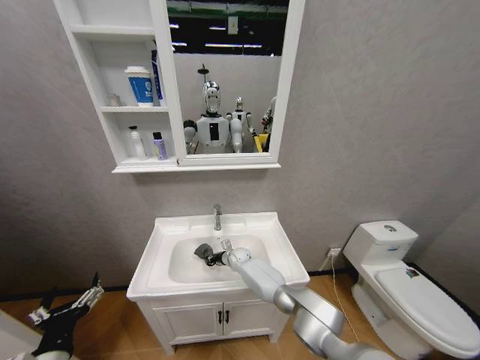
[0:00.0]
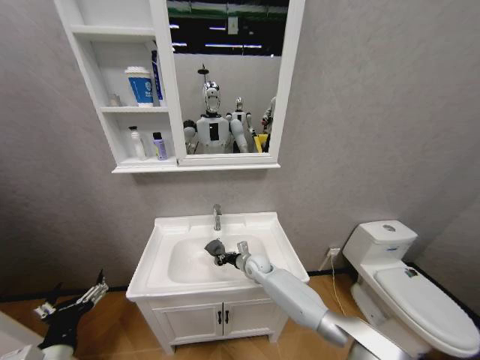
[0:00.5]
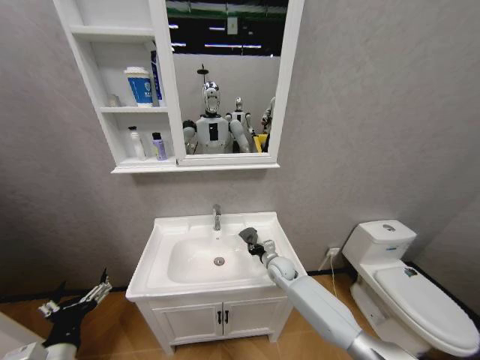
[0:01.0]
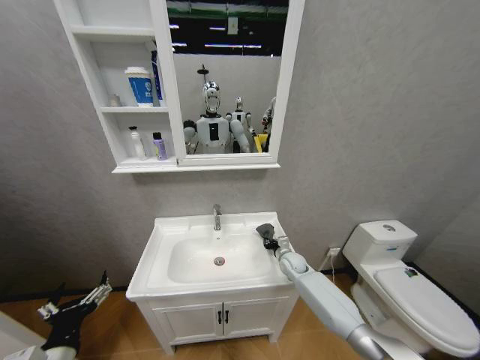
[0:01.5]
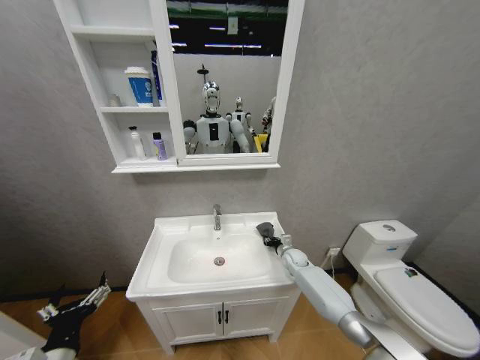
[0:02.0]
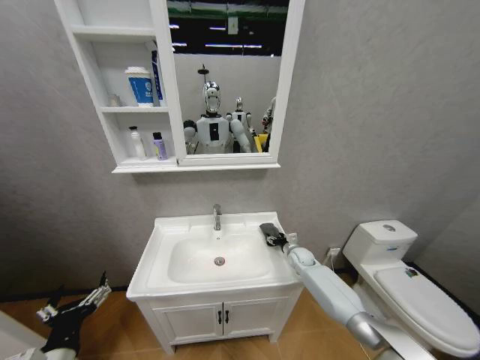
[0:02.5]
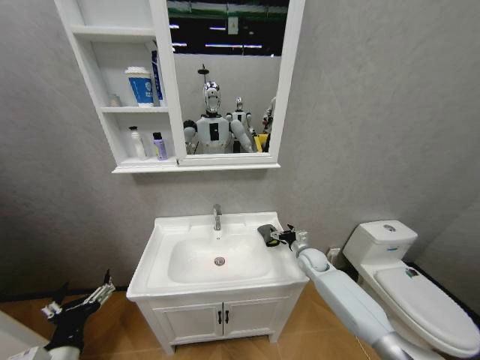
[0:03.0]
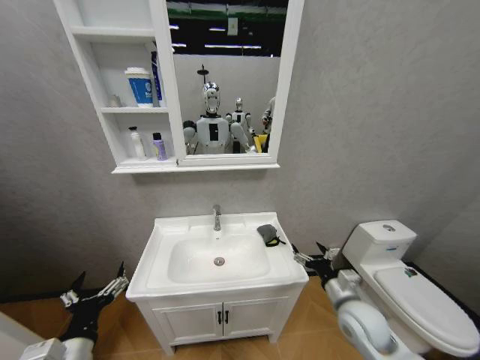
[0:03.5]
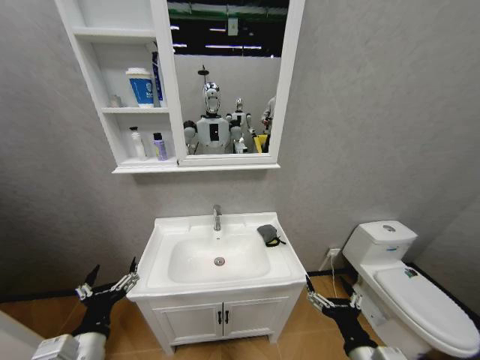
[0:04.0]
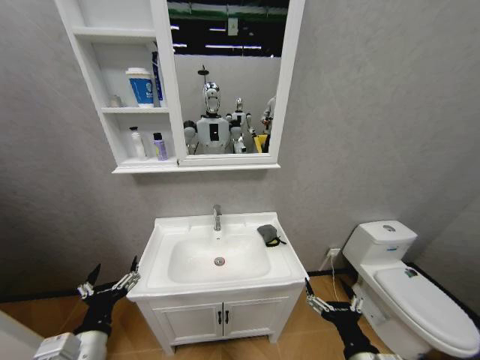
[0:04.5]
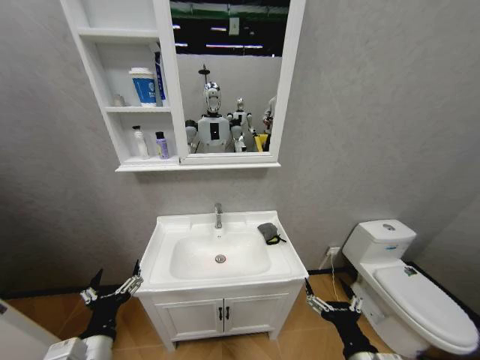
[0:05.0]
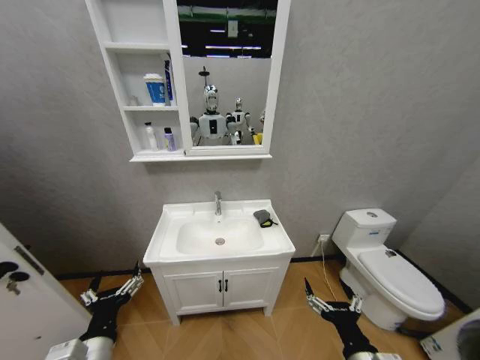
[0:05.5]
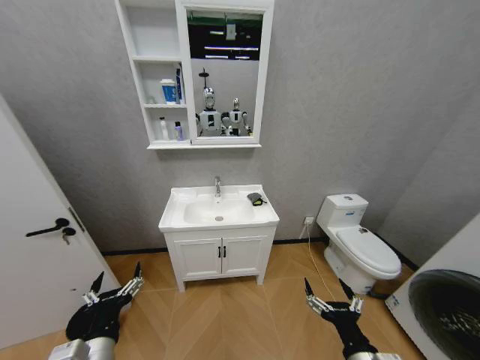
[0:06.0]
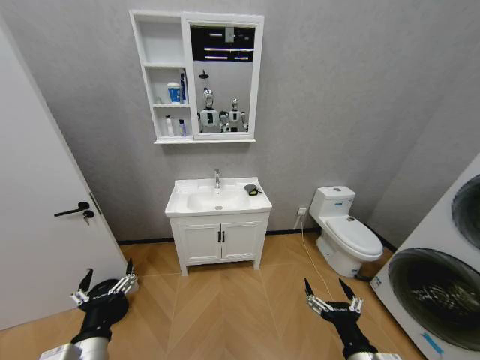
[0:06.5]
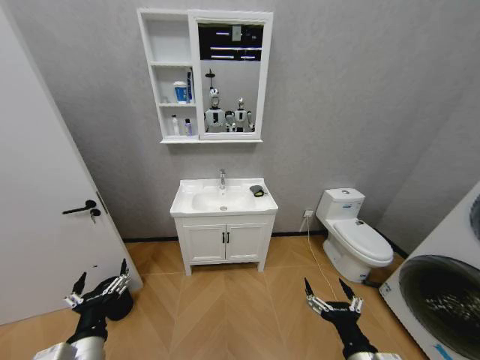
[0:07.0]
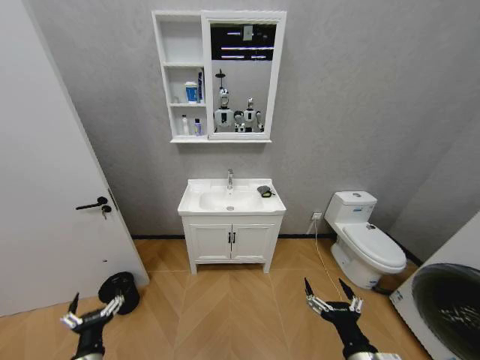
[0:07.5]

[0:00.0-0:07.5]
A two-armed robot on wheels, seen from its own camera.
Task of the whole recording: Move facial cleanser and shampoo from washbasin to cabinet, then wipe washbasin with towel.
0.0 to 2.0 s: The right gripper is displaced to the right by approximately 25 cm.
2.0 to 4.0 s: The right gripper heads backward, covering approximately 40 cm, and opens up.
5.5 to 7.5 s: The left gripper heads downward and to the left, covering about 20 cm.

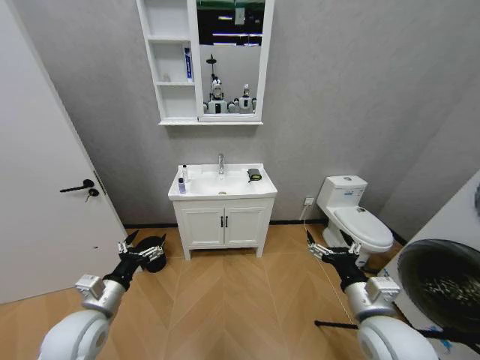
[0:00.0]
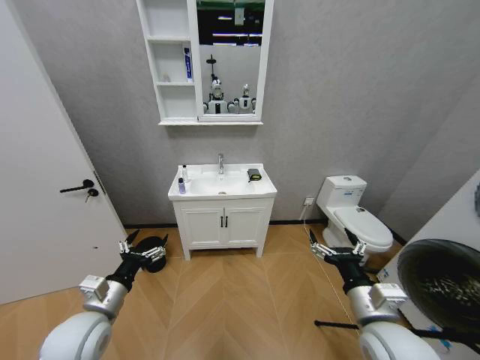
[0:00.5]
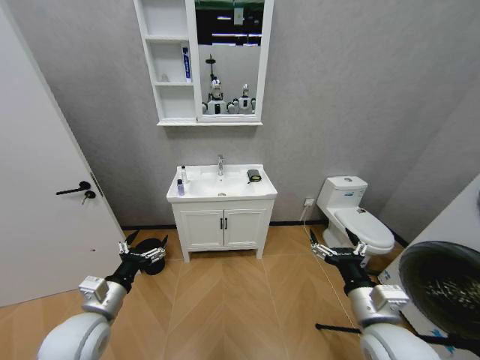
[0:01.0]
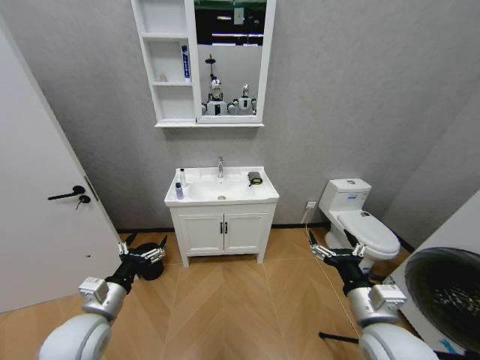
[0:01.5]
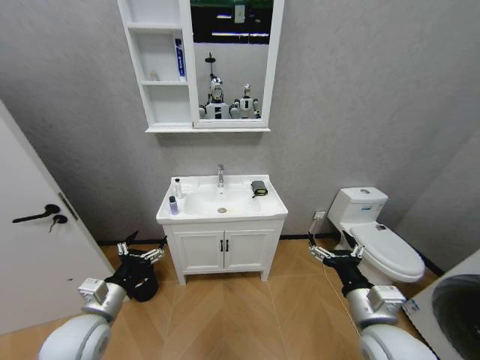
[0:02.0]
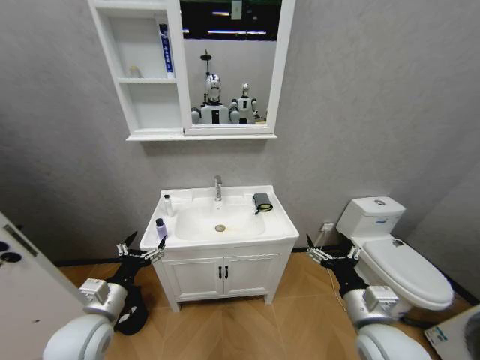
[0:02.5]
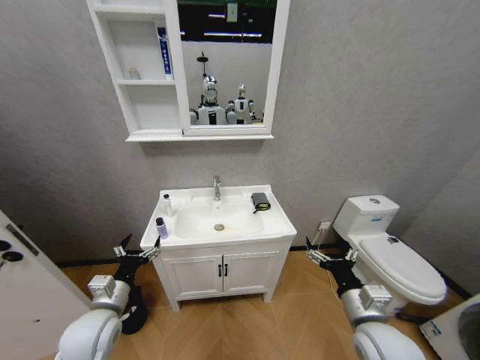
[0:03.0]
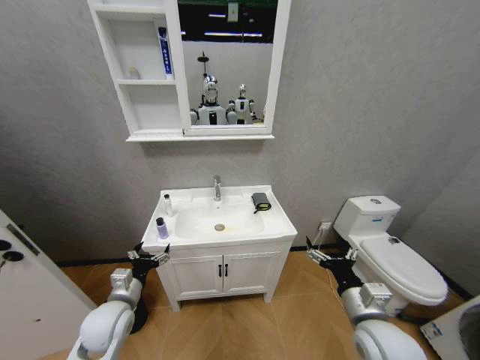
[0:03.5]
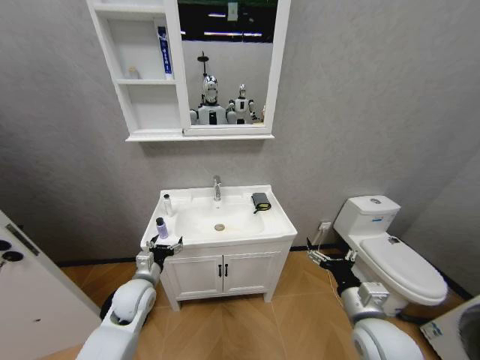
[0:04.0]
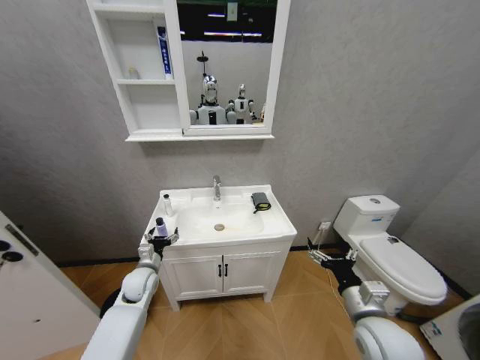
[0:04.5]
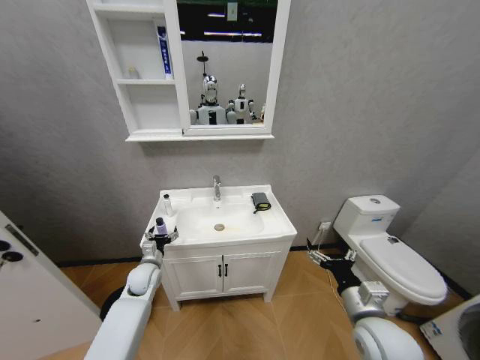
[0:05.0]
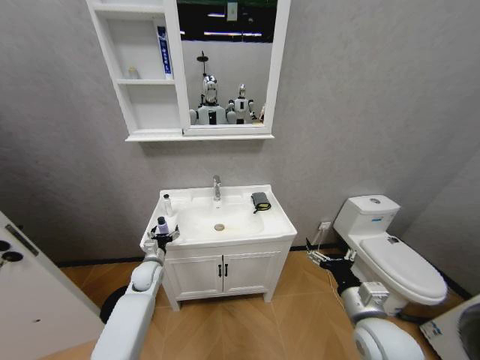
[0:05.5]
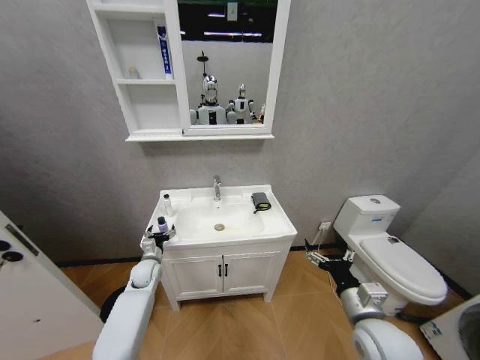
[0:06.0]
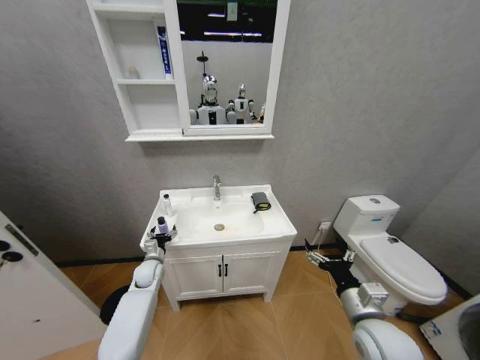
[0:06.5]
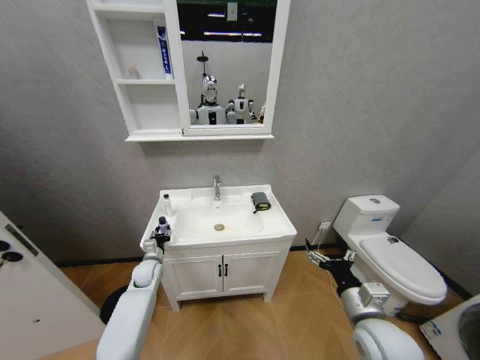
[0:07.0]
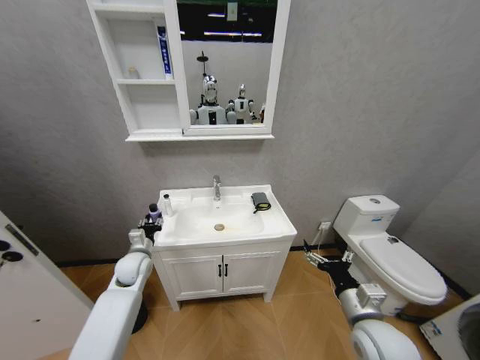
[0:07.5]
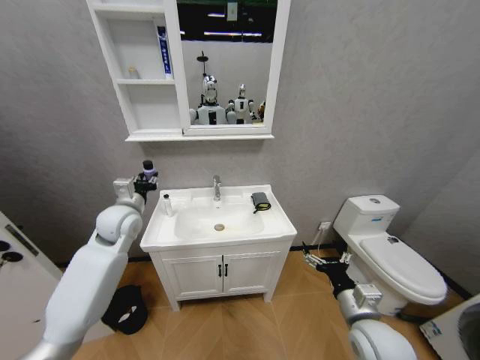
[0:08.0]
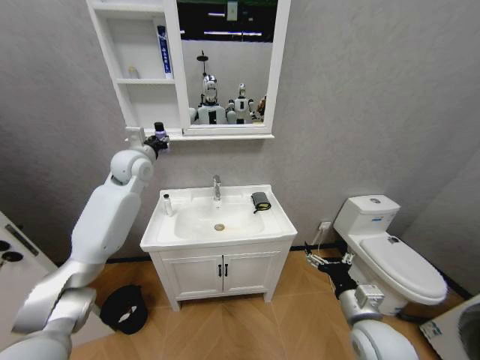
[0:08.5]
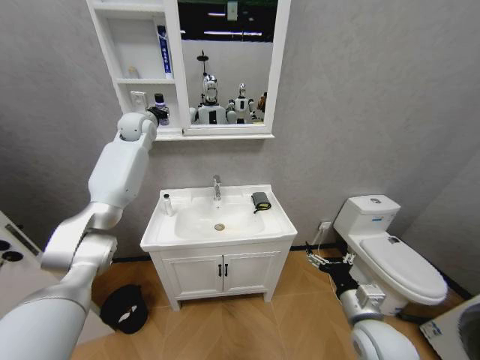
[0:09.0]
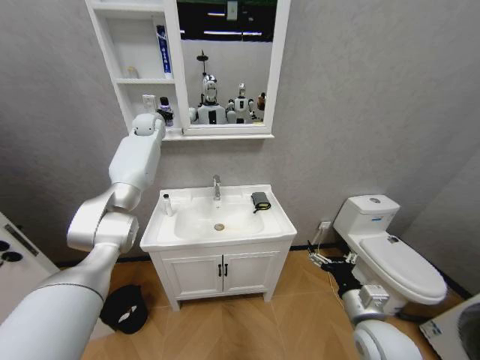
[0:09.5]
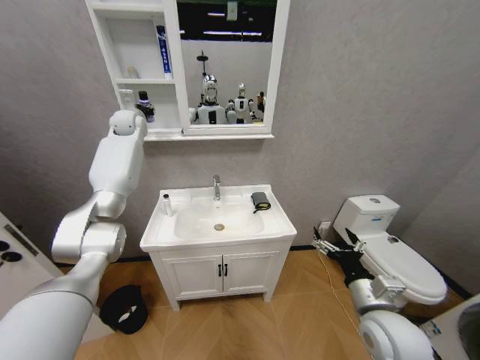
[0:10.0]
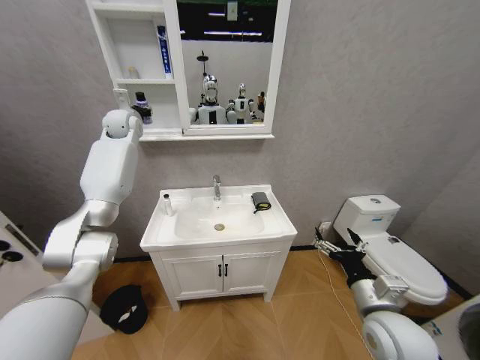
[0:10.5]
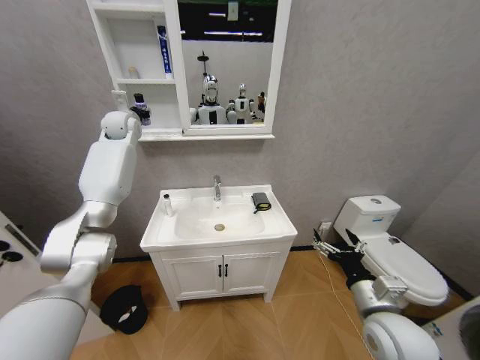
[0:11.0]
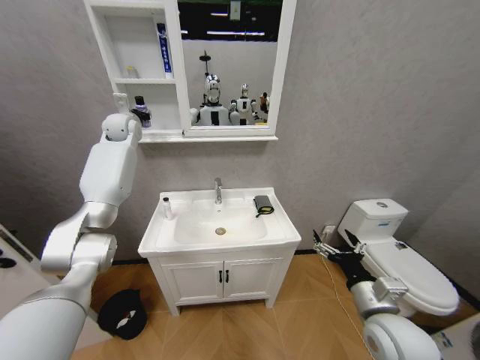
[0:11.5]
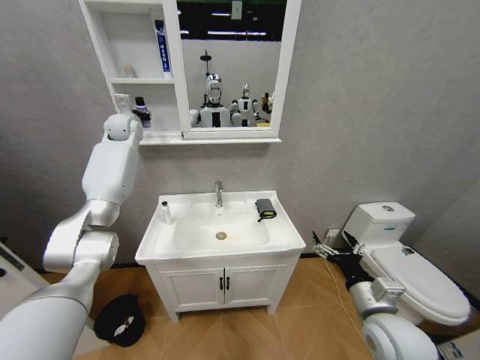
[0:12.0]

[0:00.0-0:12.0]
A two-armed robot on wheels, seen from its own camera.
Task of the whole recording: Move facial cleanser and shampoo from washbasin to cabinet, then wipe washbasin with towel.
2.0 to 4.0 s: The left gripper moves forward and downward, approximately 10 cm.
4.0 to 6.0 s: The left gripper shifts approximately 15 cm forward and downward.
6.0 to 8.0 s: The left gripper is displaced upward by some 25 cm, and closes up.
8.0 to 10.0 s: The left gripper heads forward and upward, covering roughly 30 cm.

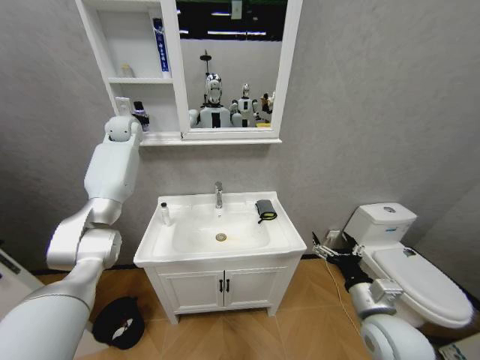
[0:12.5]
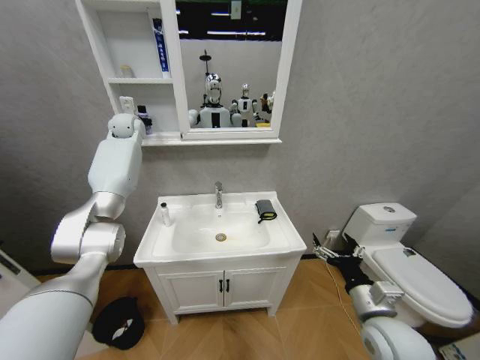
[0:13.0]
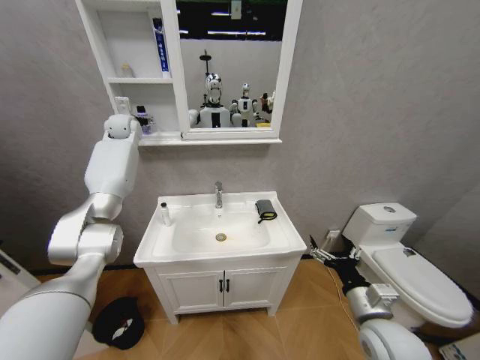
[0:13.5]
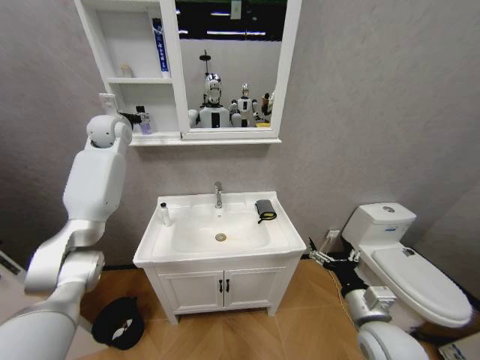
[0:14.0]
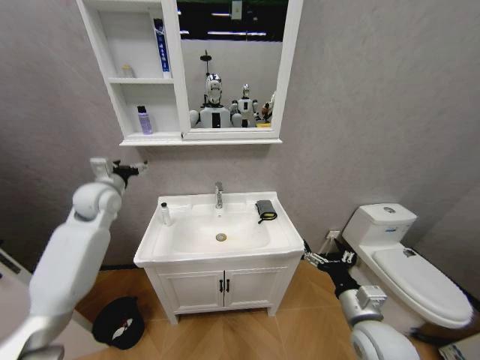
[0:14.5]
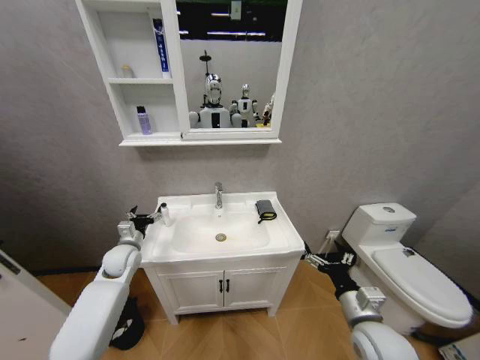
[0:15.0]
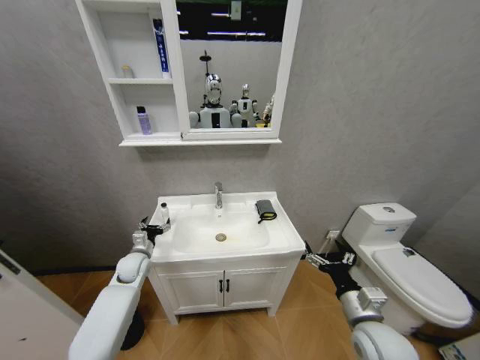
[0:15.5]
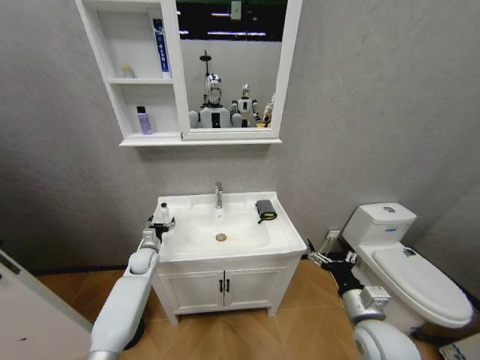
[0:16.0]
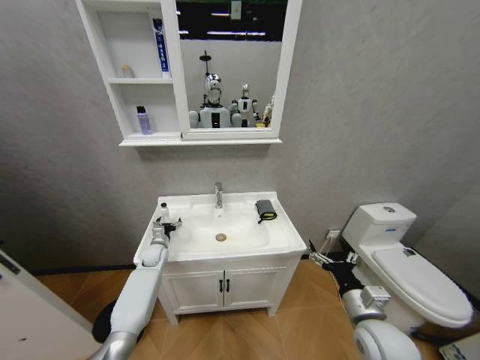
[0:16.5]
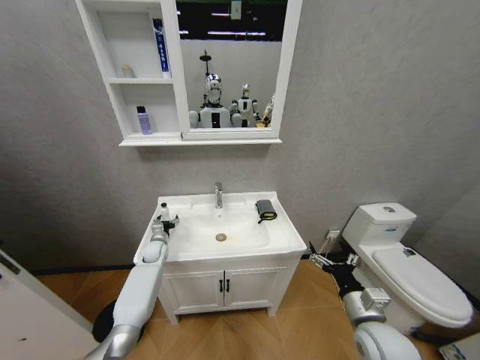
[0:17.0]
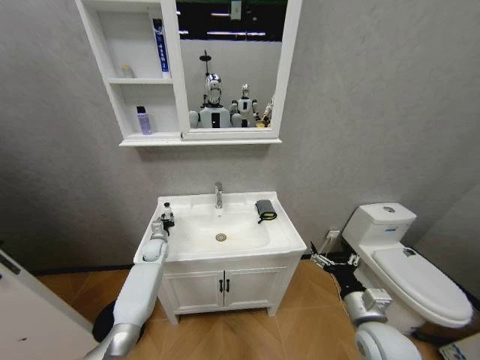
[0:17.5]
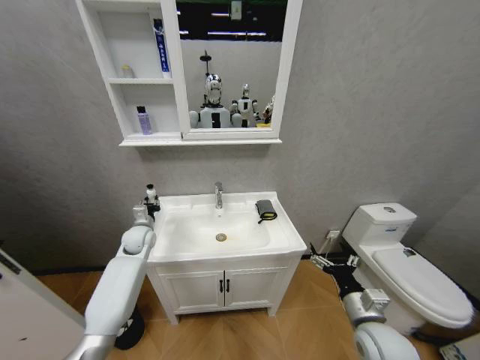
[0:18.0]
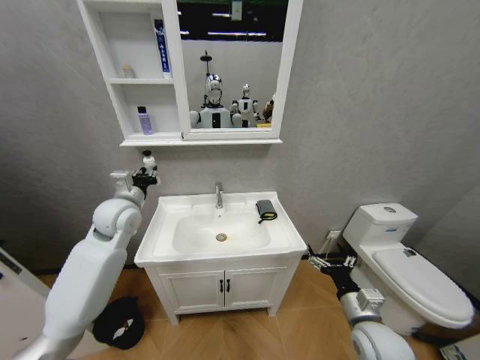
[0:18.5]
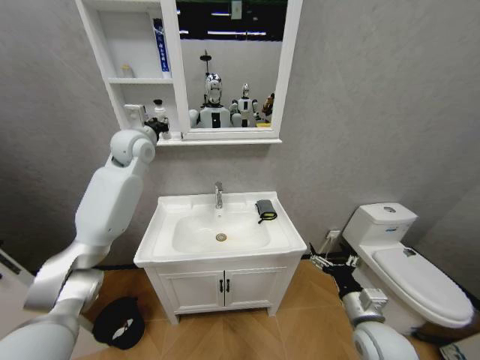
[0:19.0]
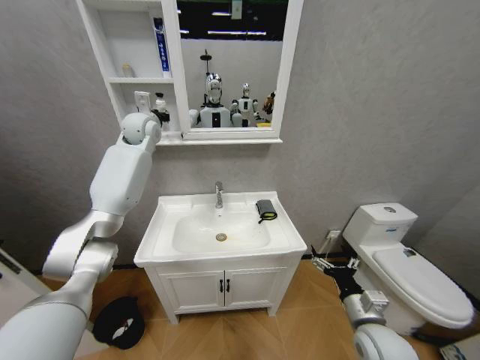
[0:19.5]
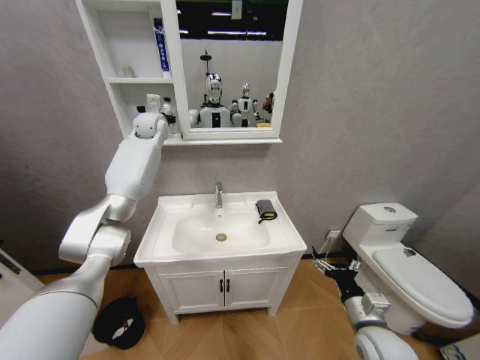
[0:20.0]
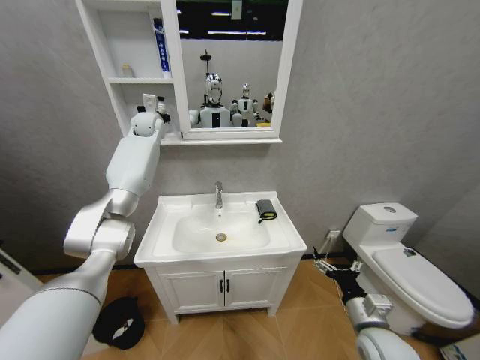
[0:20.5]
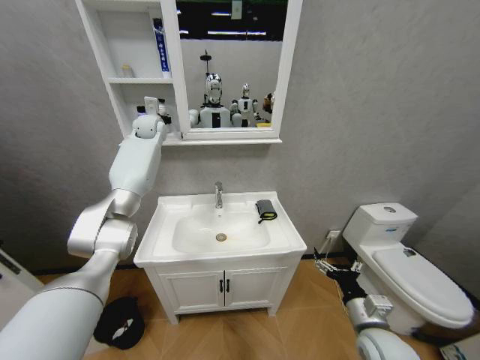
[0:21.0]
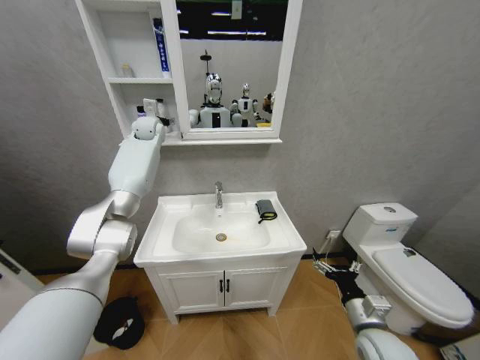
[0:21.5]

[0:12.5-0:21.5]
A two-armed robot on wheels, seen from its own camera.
Task of the whole recording: Move facial cleanser and shampoo from washbasin to cabinet, then wipe washbasin with towel.
12.5 to 14.5 s: The left gripper goes roughly 25 cm backward and downward, and opens its fingers.
14.5 to 17.0 s: The left gripper is displaced downward by roughly 30 cm.
17.0 to 19.5 s: The left gripper is displaced upward by some 40 cm, and closes.
19.5 to 21.5 s: The left gripper shifts about 5 cm forward, and opens.
